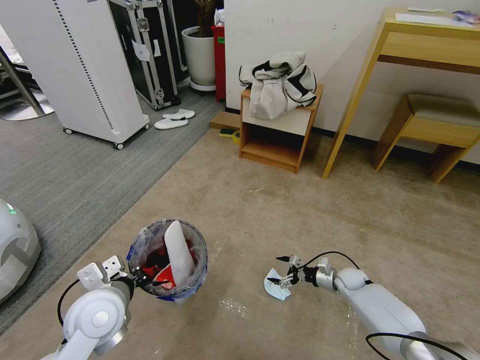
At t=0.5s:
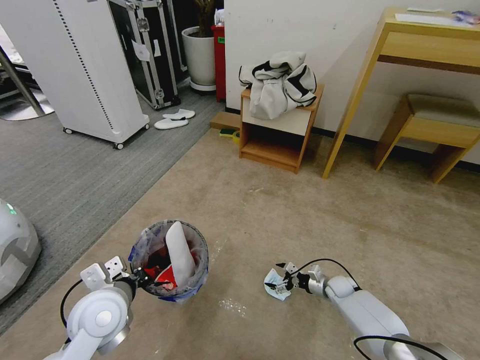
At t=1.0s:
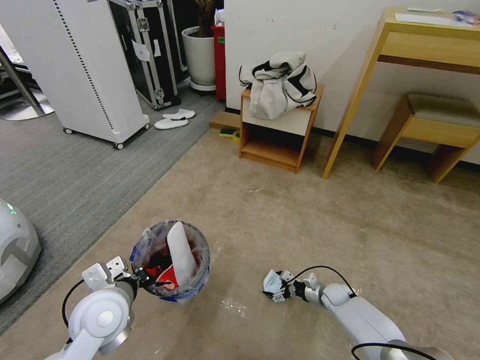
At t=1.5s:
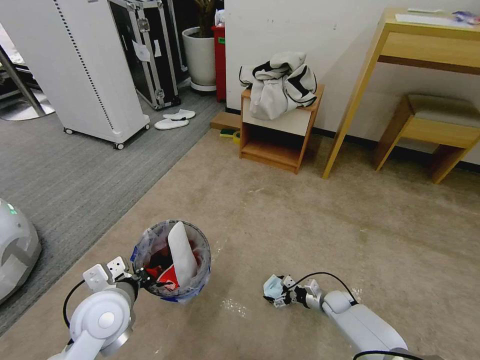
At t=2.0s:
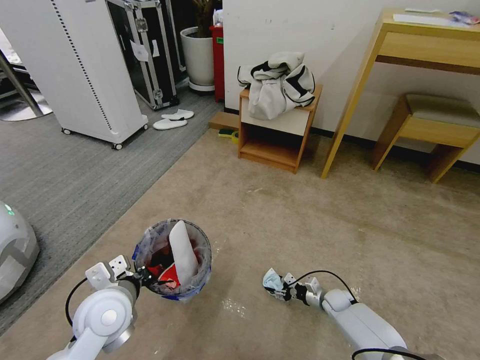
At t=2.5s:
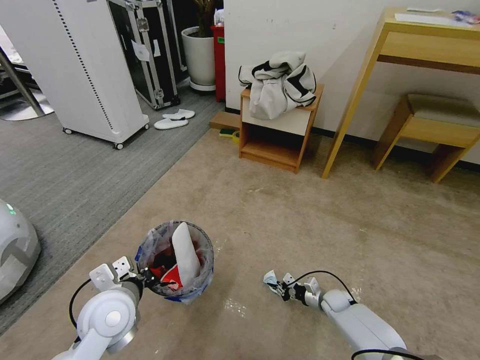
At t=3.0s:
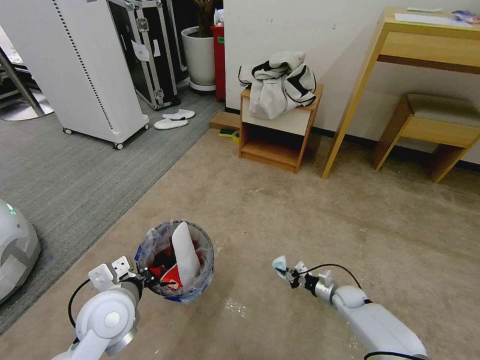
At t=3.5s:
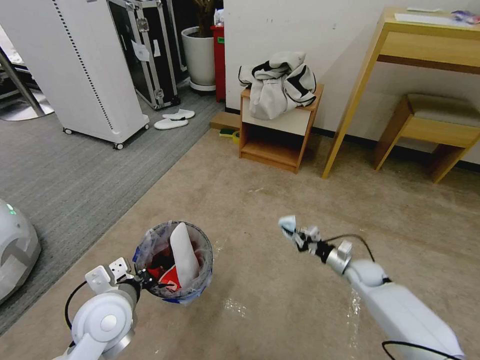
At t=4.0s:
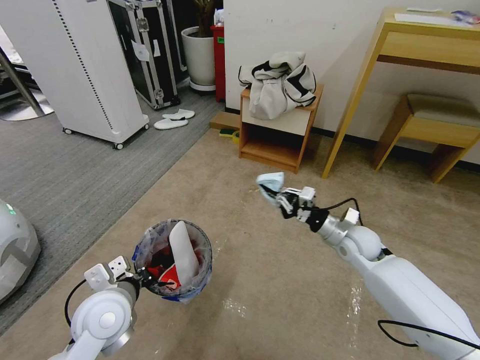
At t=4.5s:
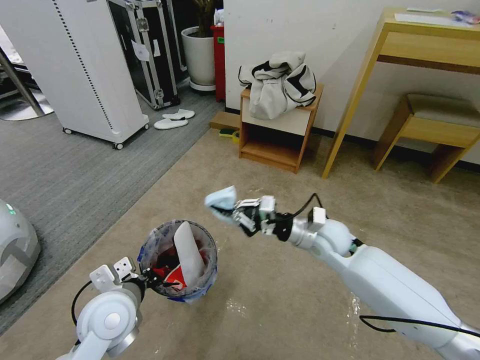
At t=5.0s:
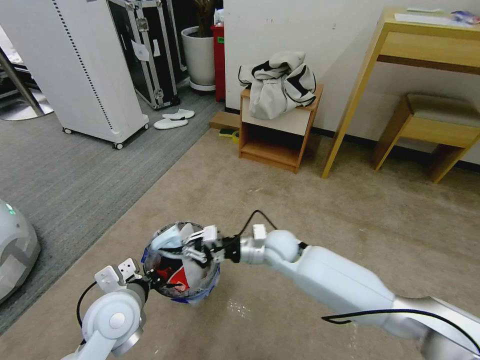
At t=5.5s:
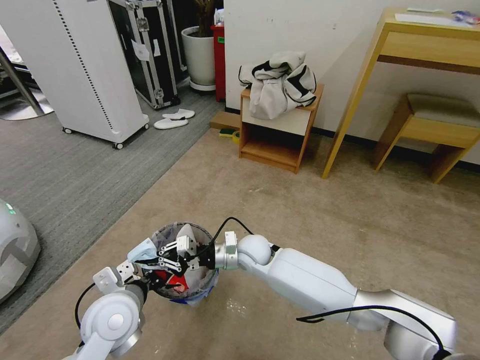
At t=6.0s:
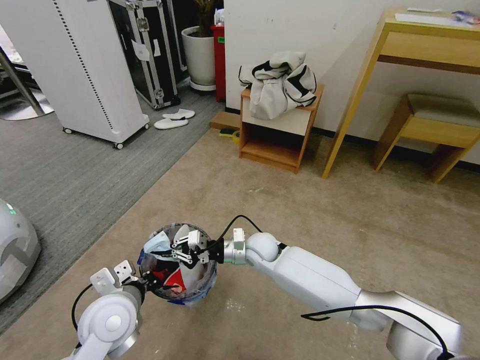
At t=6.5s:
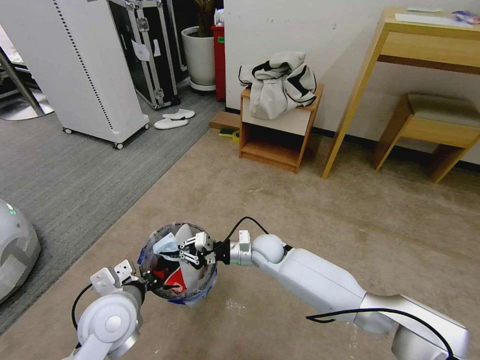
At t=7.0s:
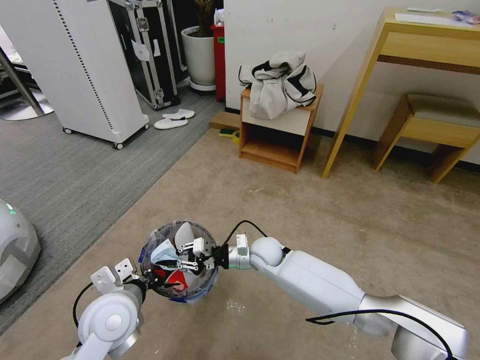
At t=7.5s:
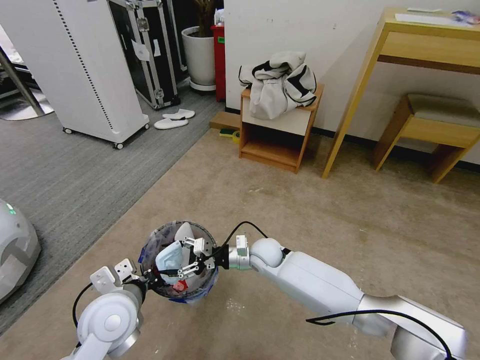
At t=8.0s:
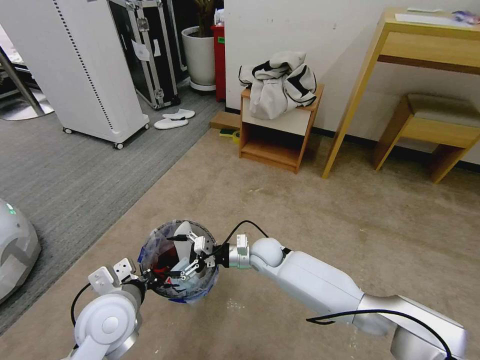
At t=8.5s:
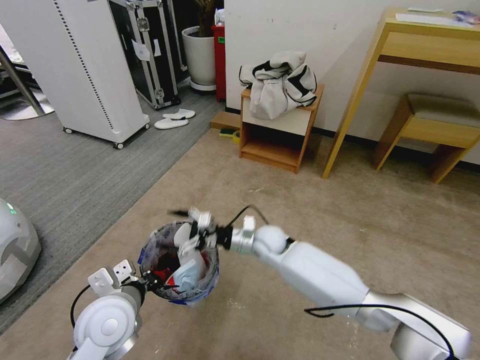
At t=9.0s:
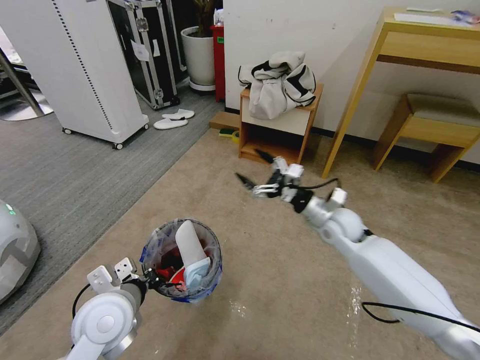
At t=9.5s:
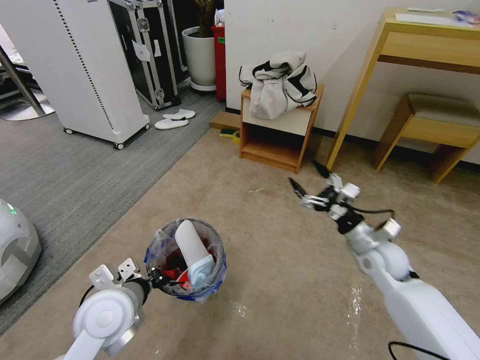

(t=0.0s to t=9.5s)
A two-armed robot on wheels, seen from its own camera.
Task of the whole recording: Pick up the trash bin and place the garbage on the floor into it.
t=0.0s - t=2.0s: The right gripper is displaced downward by roughly 5 cm, and closes.
t=2.0s - t=4.0s: The right gripper shifts about 30 cm upward, and closes its fingers.
t=4.0s - t=5.5s: The right gripper goes roughly 25 cm to the left.
t=5.5s - t=7.5s: The right gripper moves roughly 5 cm, and opens up.
t=7.5s - t=9.5s: The right gripper is displaced to the right by about 25 cm.

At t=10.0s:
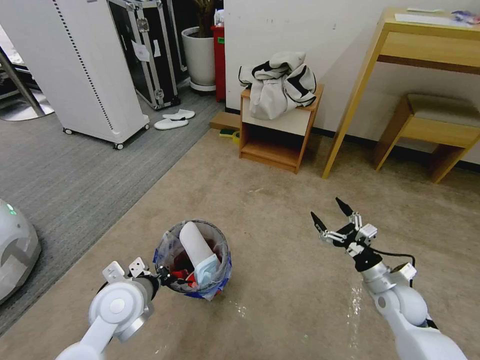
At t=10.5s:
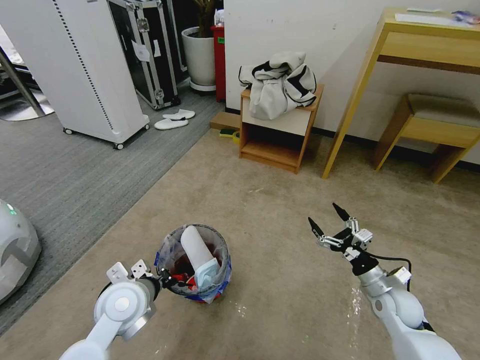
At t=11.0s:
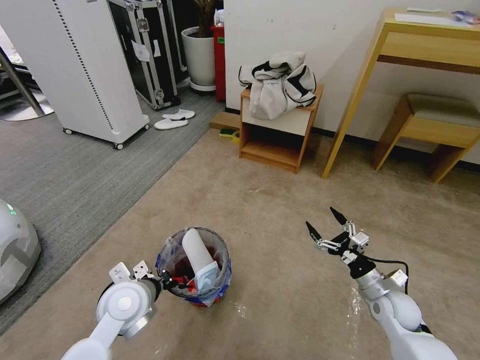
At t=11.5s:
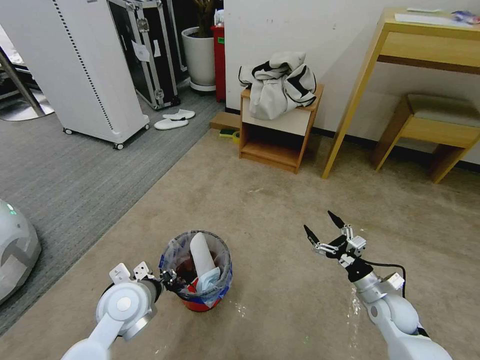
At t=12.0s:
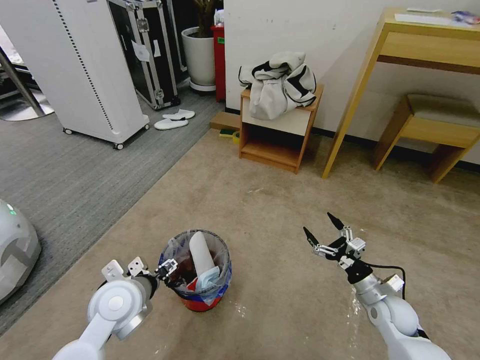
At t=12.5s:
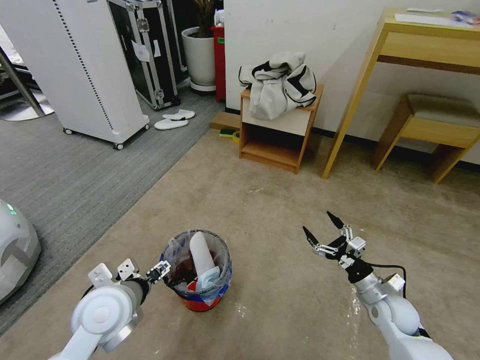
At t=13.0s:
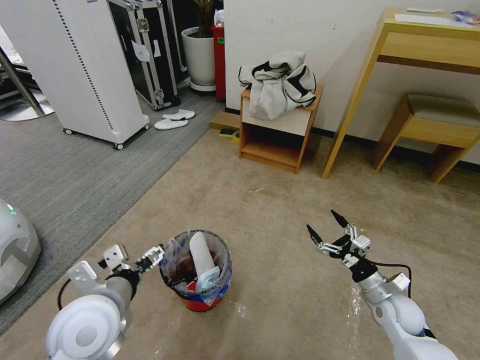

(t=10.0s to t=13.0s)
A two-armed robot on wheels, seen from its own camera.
Task of the whole recording: Pick up the trash bin and place the garbage on the floor into it.
t=10.0s - t=11.5s: The left gripper opens up.
t=11.5s - t=13.0s: The left gripper moves upward and backward, approximately 10 cm, and opens its fingers.
